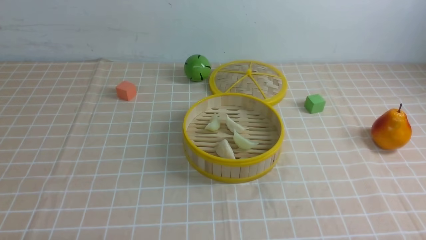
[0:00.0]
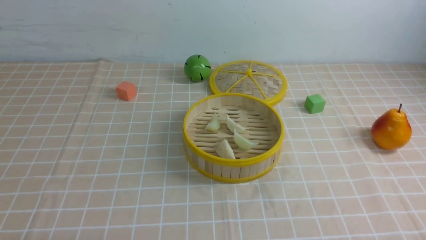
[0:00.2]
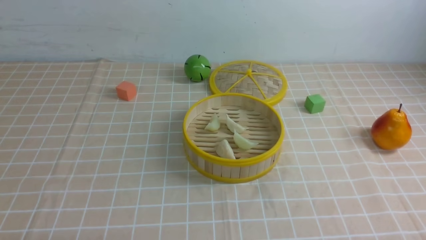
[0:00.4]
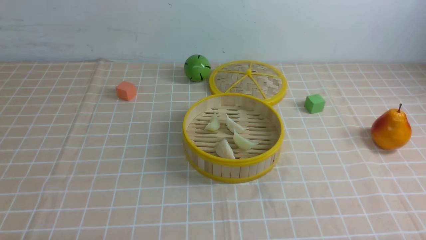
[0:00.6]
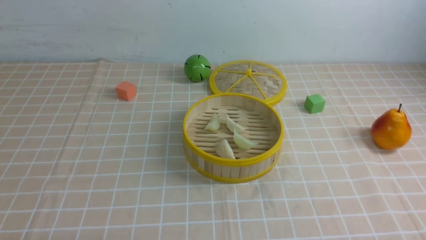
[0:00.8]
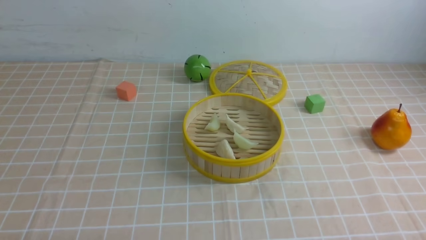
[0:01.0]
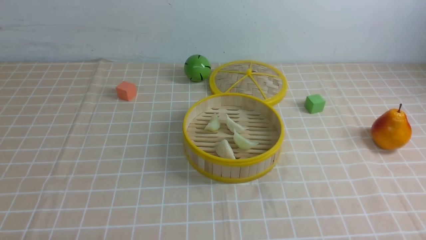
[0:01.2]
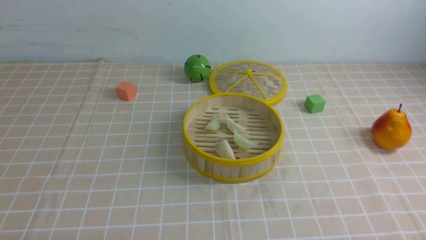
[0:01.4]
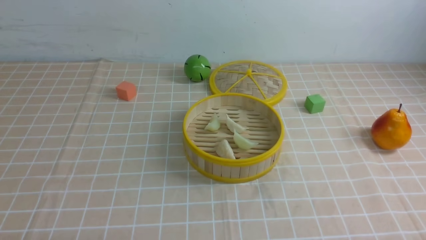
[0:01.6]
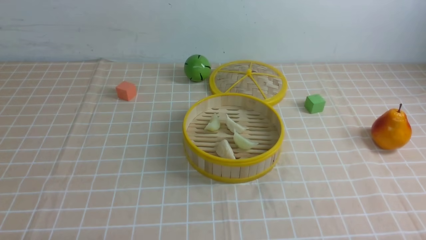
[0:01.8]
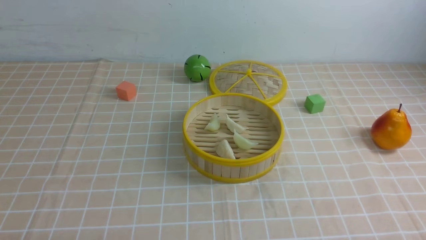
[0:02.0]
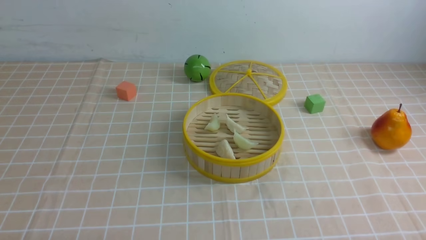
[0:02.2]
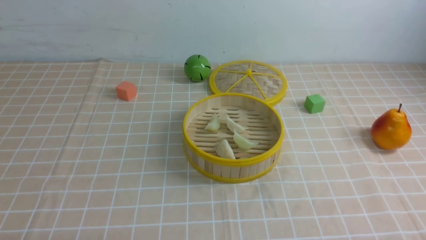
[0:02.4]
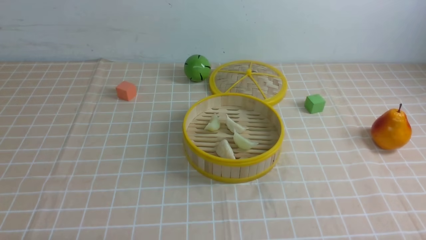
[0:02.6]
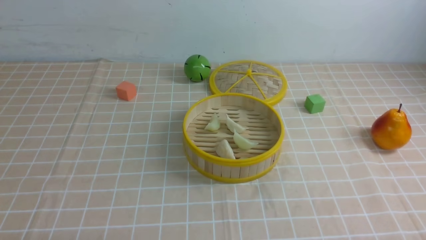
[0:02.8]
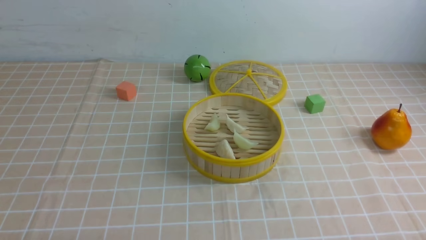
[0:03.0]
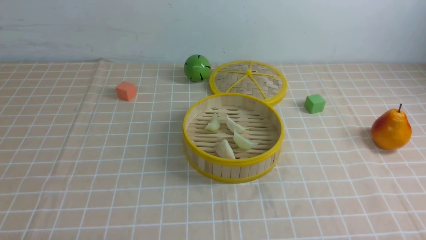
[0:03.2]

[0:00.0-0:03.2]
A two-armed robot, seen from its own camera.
Task of the whole recording: put the dumplings into the steamer on the table with the brown tablecloth.
0:00.0 to 0:03.2: The two grippers keep their place.
